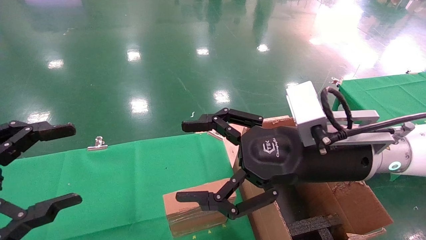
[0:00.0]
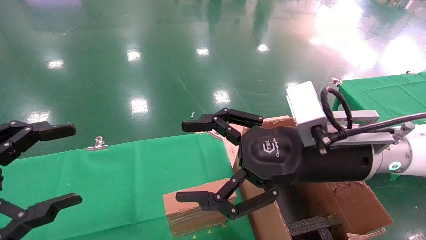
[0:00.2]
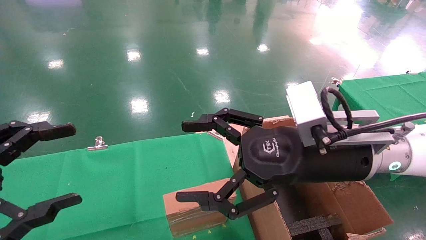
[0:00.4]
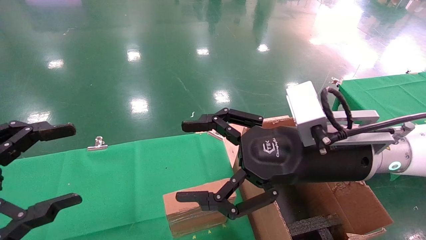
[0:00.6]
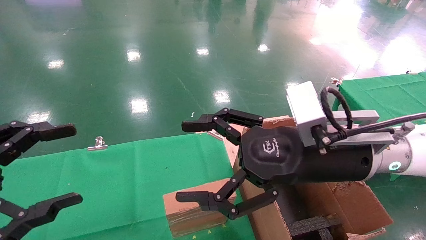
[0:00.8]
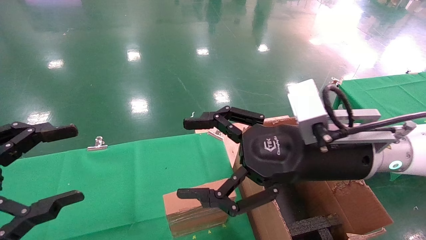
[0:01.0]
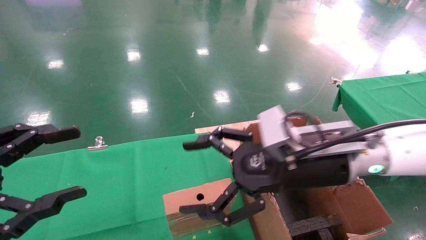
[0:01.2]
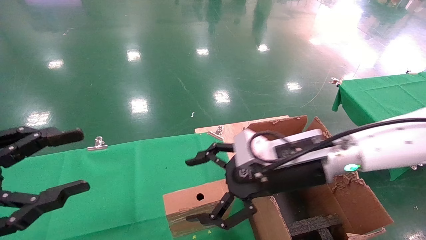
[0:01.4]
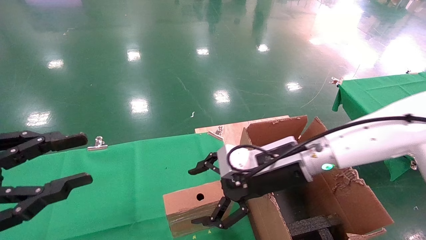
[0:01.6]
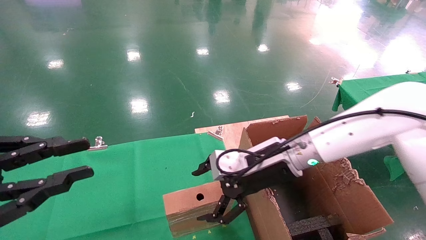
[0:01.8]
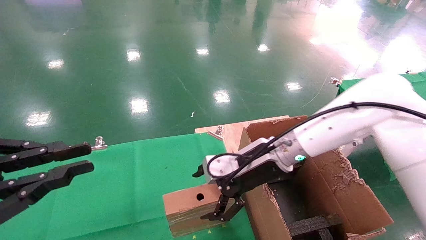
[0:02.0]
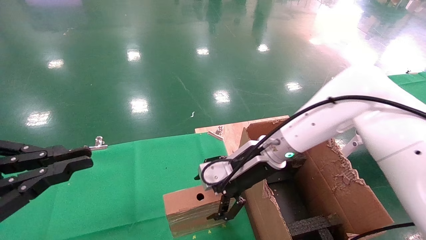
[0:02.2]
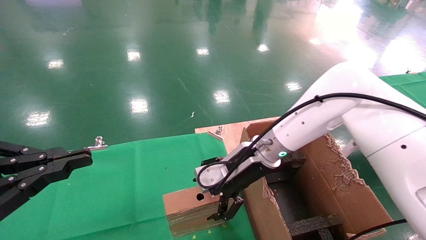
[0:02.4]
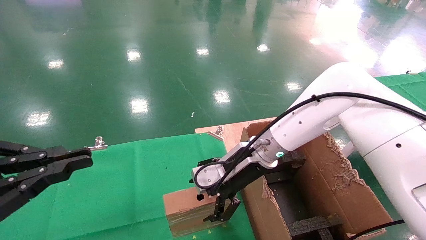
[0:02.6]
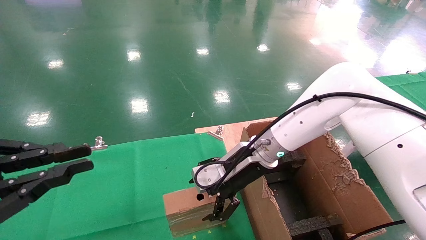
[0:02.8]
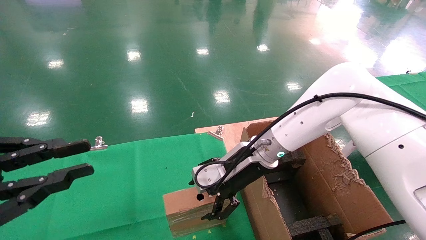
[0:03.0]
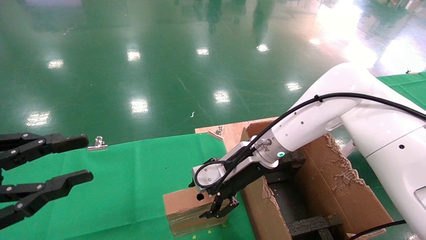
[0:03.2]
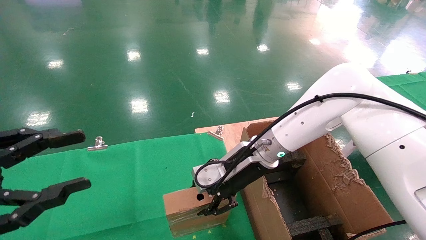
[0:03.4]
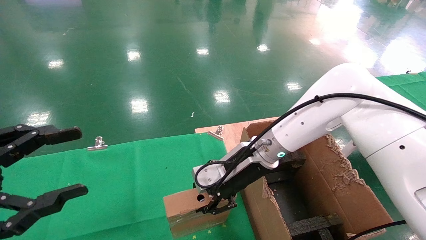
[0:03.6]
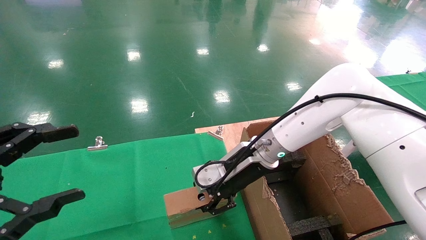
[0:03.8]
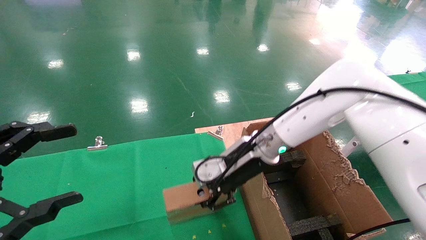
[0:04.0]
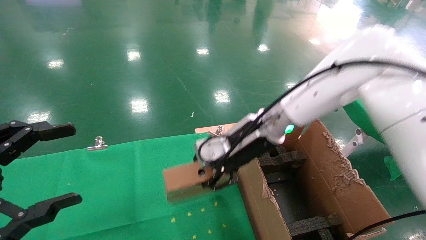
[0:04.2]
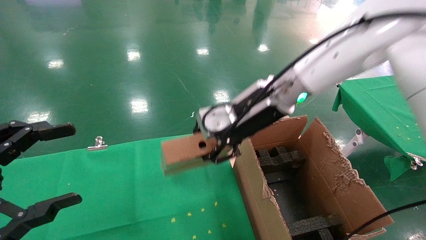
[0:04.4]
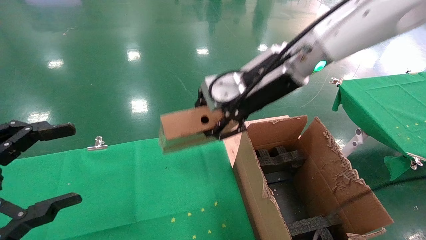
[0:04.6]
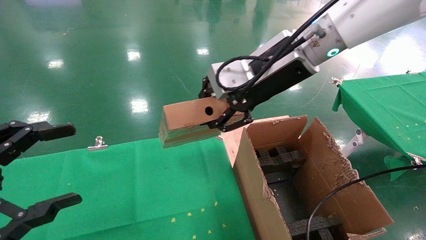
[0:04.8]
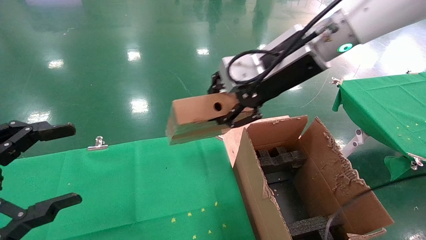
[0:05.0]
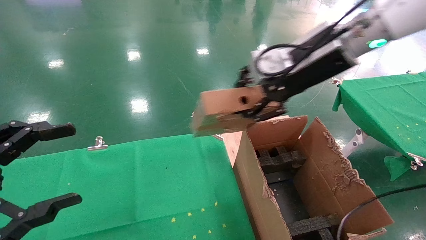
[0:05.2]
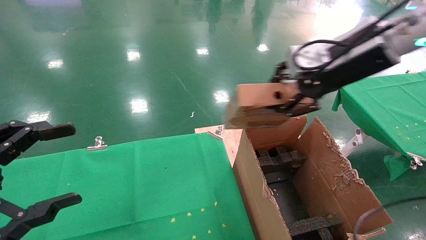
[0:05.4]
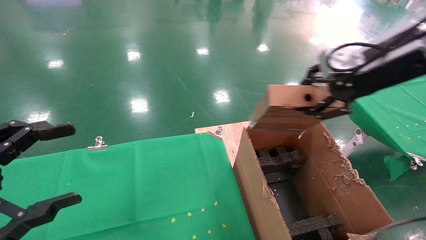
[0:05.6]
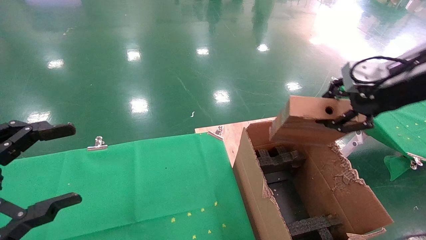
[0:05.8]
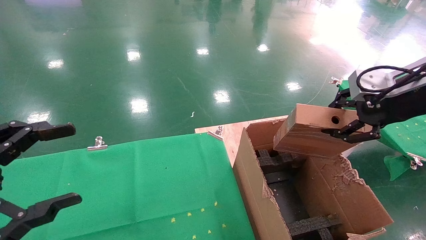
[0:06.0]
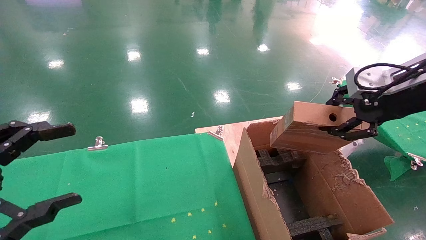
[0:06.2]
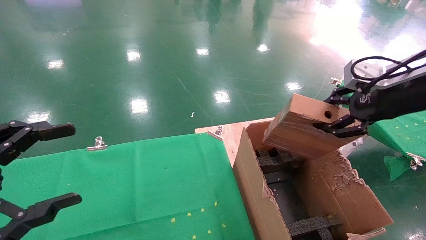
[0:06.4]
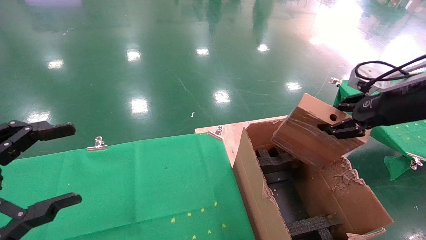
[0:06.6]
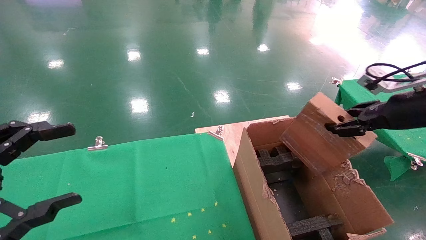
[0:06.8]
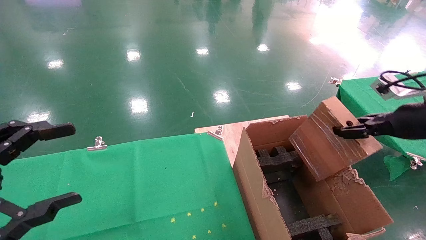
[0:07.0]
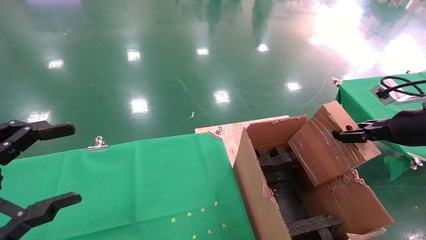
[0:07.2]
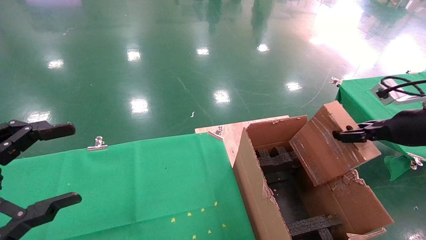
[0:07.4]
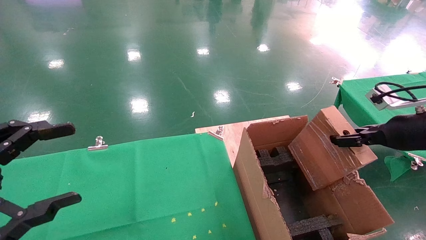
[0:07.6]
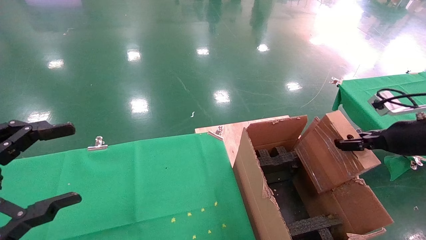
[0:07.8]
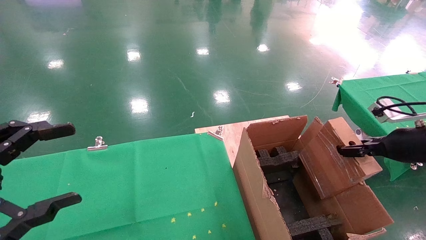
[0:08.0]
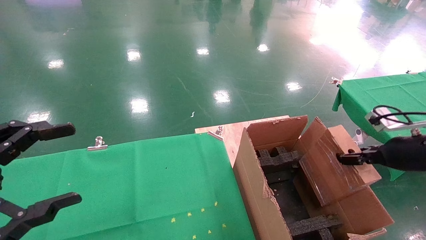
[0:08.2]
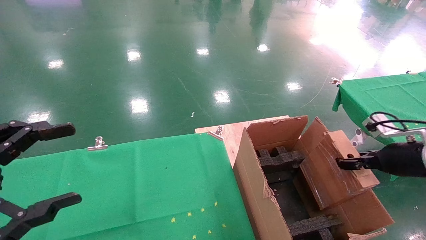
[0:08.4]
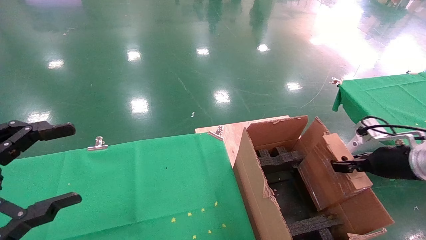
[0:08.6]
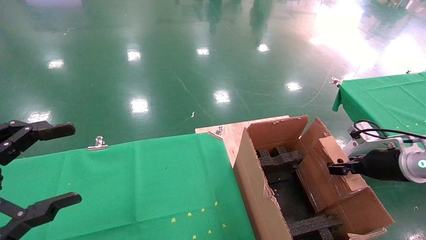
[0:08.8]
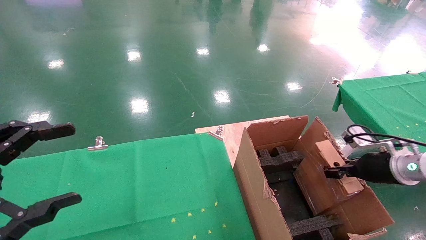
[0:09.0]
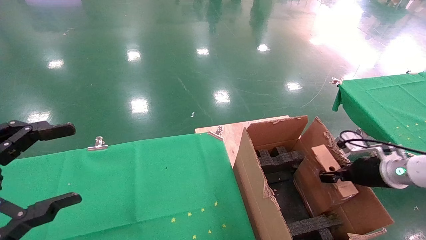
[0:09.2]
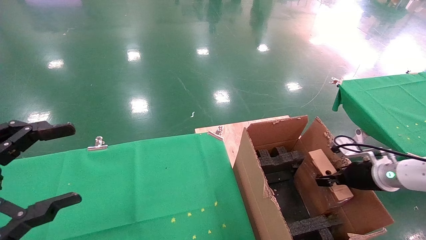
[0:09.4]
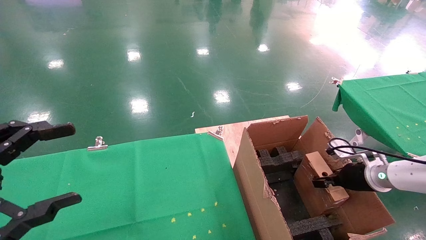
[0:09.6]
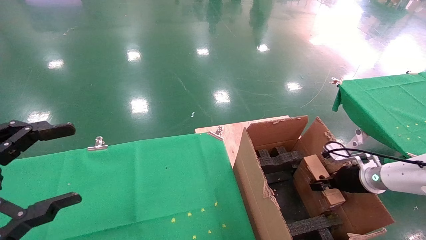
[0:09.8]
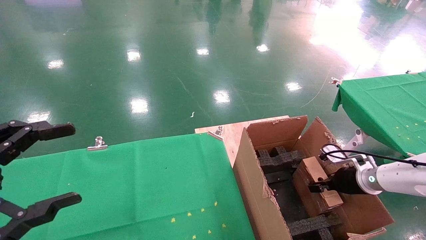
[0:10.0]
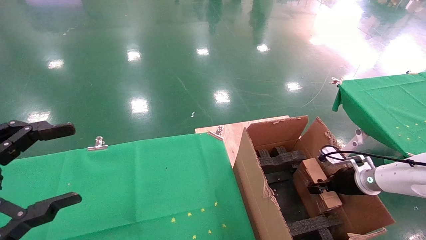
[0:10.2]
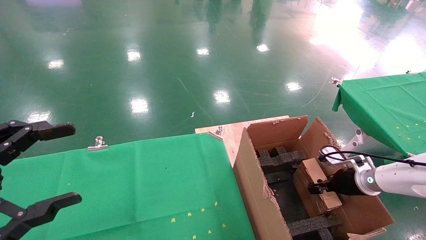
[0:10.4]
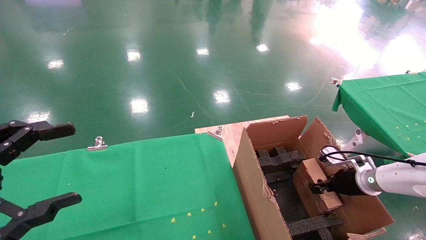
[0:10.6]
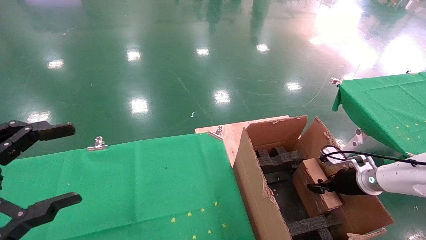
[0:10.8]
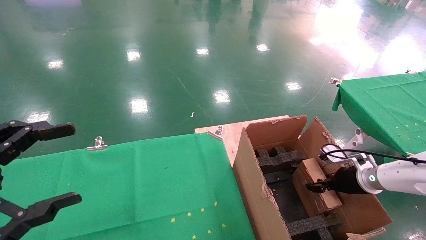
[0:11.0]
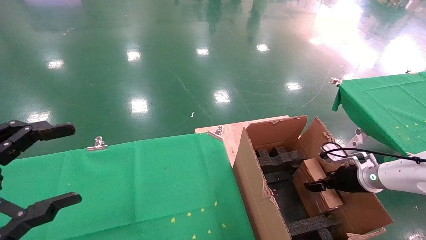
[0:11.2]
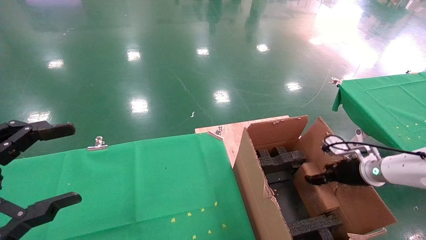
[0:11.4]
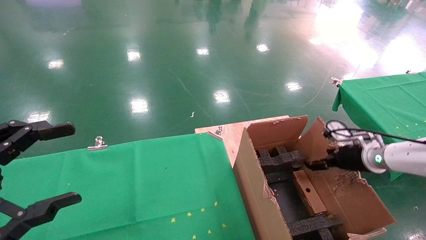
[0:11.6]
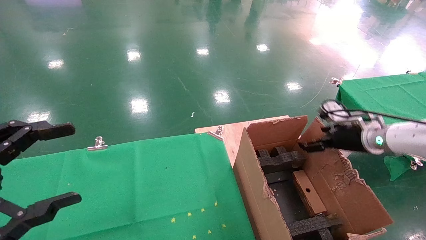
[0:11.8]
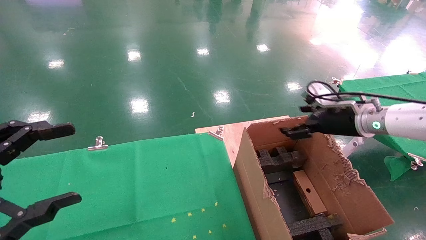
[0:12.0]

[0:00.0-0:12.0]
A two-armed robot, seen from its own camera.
Task of the whole recording: using a robotic arm to pick up a cardboard box and palace it the carton.
Step, 0:01.2 to 0:03.6: Pick up the mouse and the power cord paper box.
Step, 0:03.8 to 0:11.8: Place the mouse and the power cord paper box into the container.
0:00.0 to 0:01.6: The right gripper shifts roughly 10 cm forward and downward. Meanwhile the left gripper closes up.
0:01.6 to 0:03.0: The left gripper closes up. Meanwhile the right gripper travels forward by about 5 cm.
0:03.0 to 0:04.4: The left gripper opens, while the right gripper heads upward, covering approximately 10 cm, and closes.
0:04.4 to 0:06.0: The right gripper shifts roughly 25 cm to the right and backward.
0:06.0 to 0:07.6: The right gripper goes approximately 15 cm downward and to the right.
0:07.6 to 0:09.0: The right gripper heads downward, covering roughly 10 cm.
0:09.0 to 0:10.4: The right gripper shifts roughly 10 cm downward and forward.
0:10.4 to 0:12.0: The right gripper travels upward and to the left by some 20 cm, and opens.

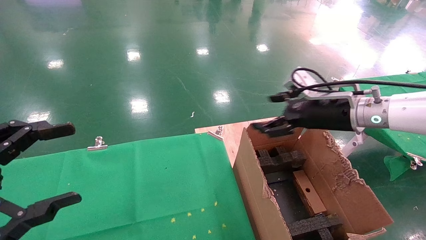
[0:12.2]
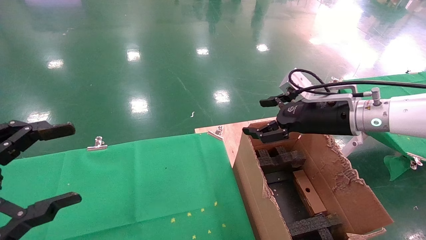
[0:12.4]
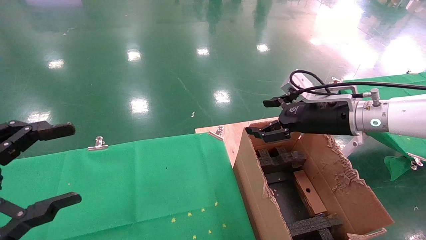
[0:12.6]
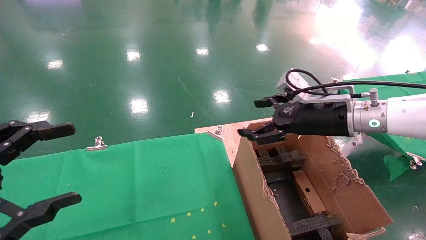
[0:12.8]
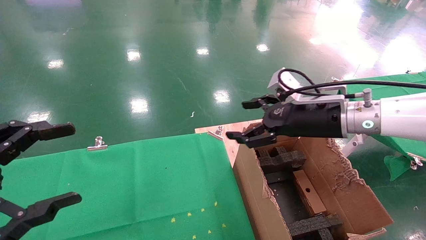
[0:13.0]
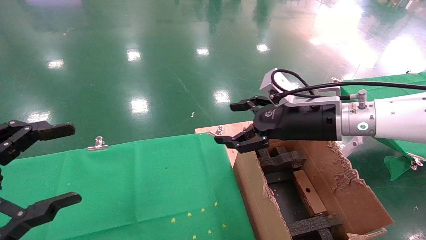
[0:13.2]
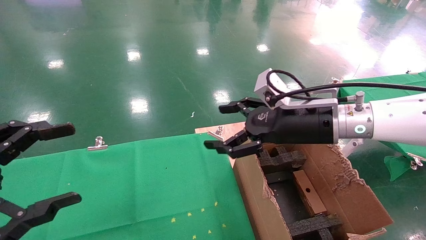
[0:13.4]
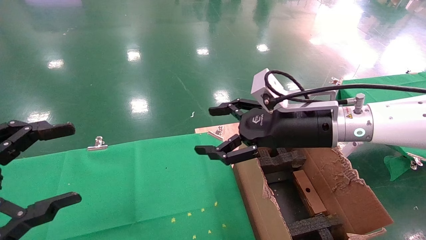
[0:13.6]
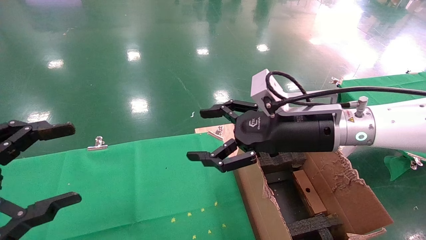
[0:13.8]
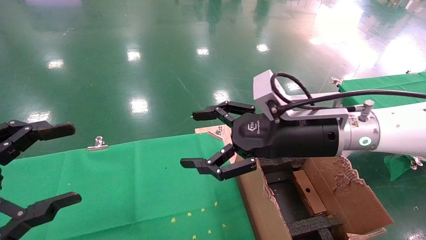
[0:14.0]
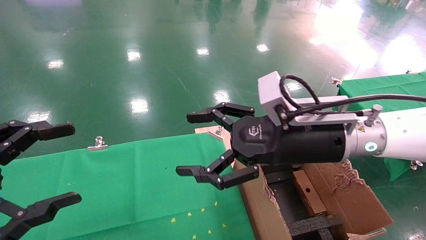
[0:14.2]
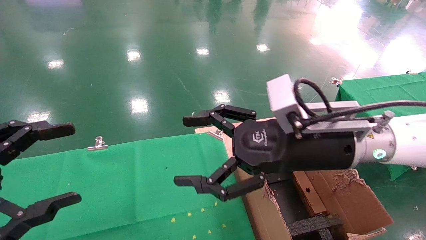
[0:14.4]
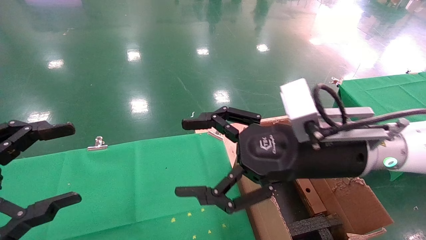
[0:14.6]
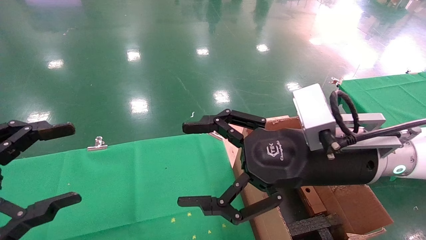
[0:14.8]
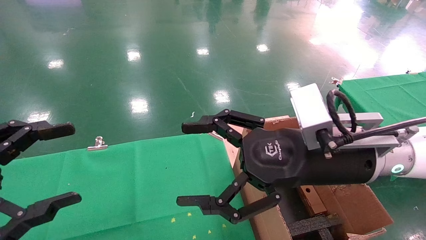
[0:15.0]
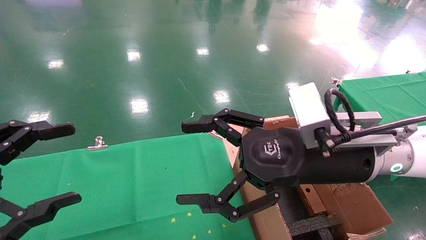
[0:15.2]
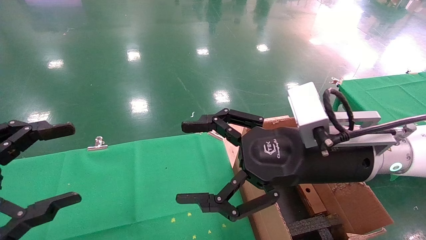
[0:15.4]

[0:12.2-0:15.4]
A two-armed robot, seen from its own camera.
Task of the whole recording: using a robotic arm to pick up a cardboard box and palace it the carton.
0:12.2 to 0:13.8: The right gripper is displaced to the left and backward by approximately 15 cm.
0:13.8 to 0:15.4: The right gripper shifts some 5 cm backward.

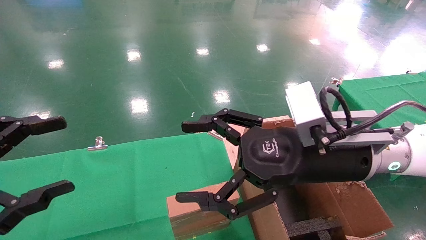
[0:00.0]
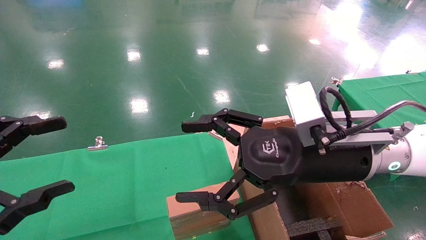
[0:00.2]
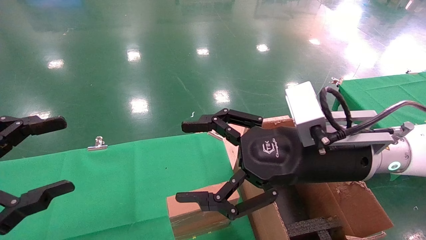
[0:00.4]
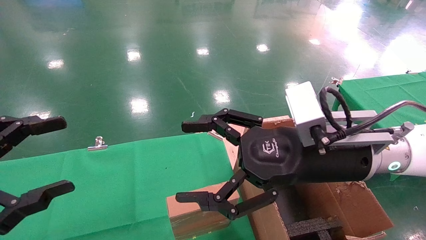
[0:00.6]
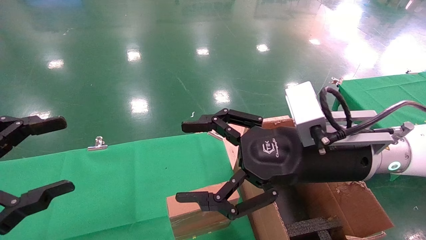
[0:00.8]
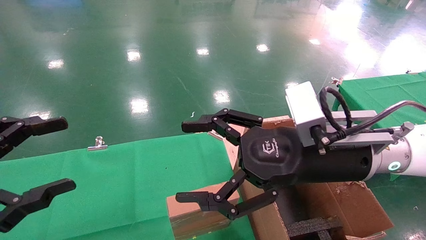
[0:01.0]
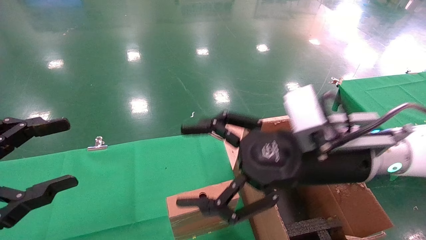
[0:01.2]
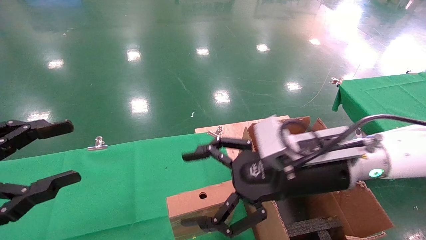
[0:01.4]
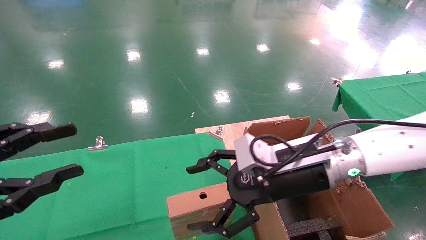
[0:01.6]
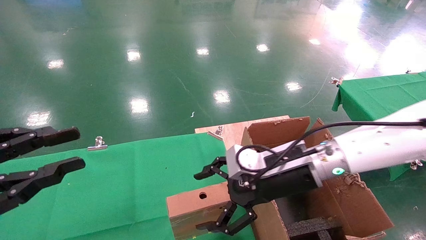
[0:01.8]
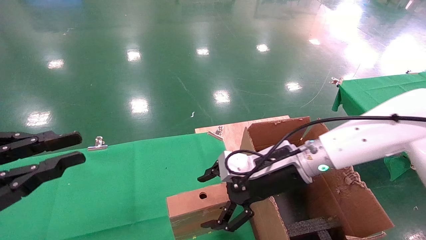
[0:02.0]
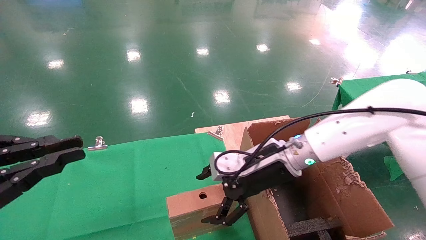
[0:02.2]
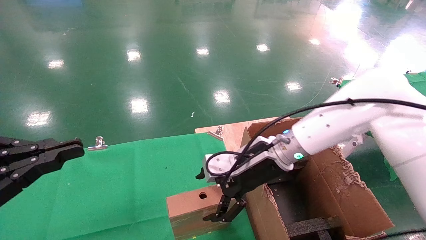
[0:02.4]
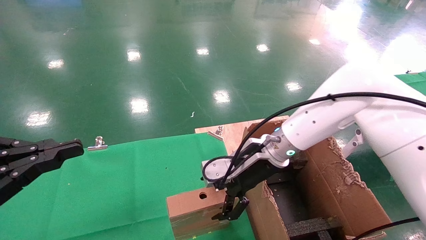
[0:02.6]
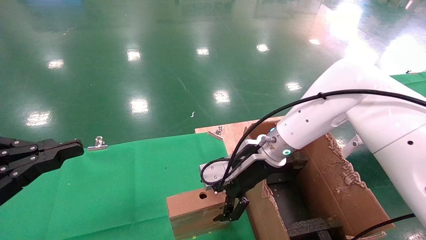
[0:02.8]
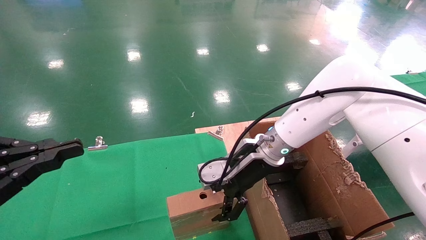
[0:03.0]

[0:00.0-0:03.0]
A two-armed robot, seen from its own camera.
Task of the whole recording: using a robotic arm to pick up a cardboard box and palace it the carton.
0:00.0 to 0:01.6: The right gripper moves downward, roughly 5 cm. Meanwhile the left gripper closes its fingers.
0:01.6 to 0:03.0: The left gripper closes its fingers, while the right gripper heads forward, covering roughly 10 cm.
